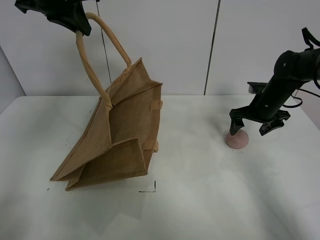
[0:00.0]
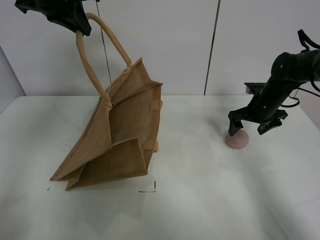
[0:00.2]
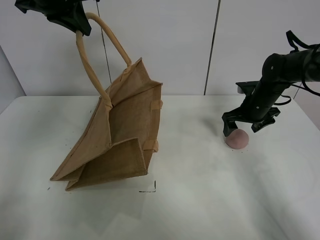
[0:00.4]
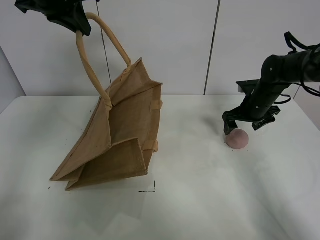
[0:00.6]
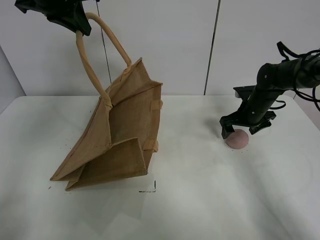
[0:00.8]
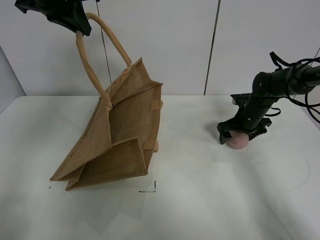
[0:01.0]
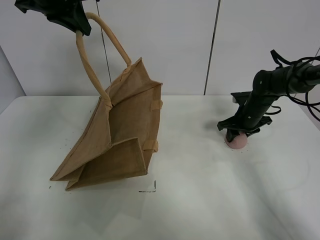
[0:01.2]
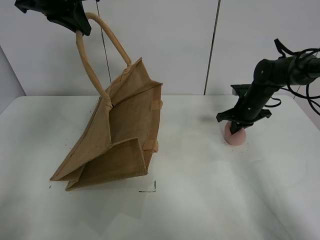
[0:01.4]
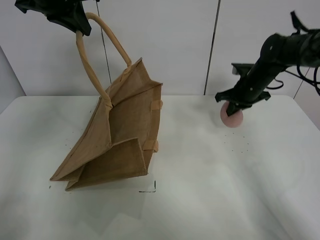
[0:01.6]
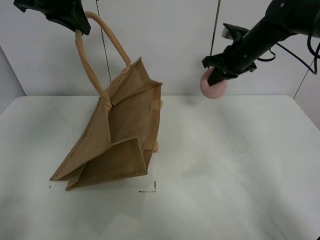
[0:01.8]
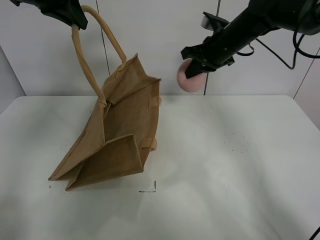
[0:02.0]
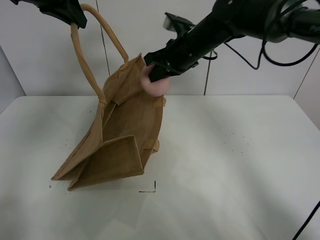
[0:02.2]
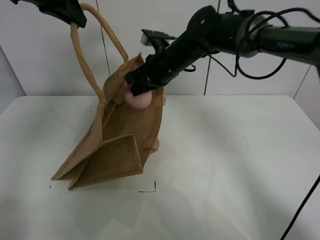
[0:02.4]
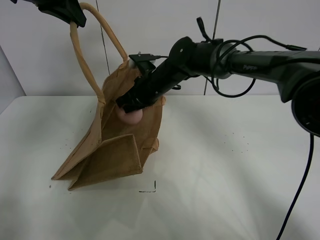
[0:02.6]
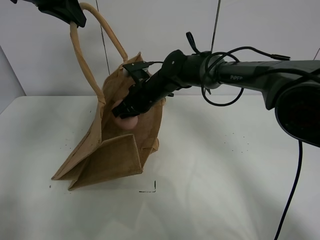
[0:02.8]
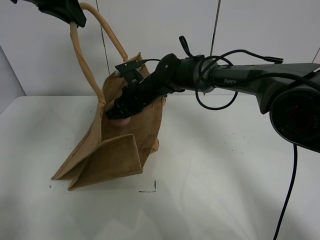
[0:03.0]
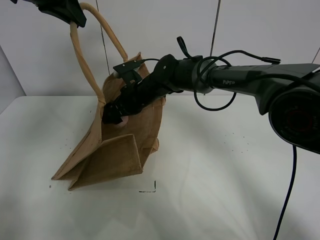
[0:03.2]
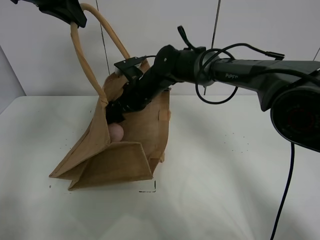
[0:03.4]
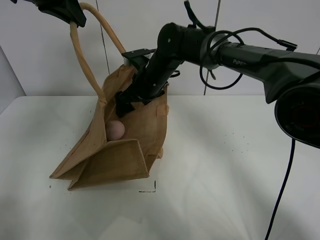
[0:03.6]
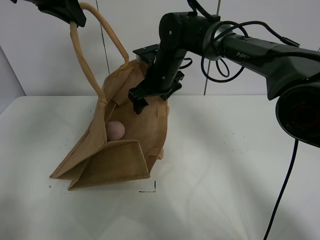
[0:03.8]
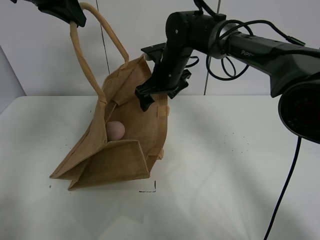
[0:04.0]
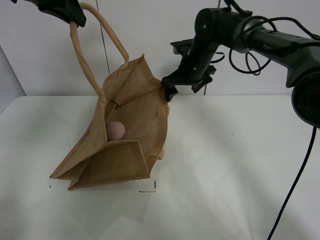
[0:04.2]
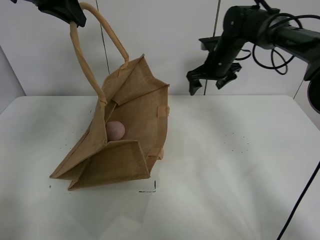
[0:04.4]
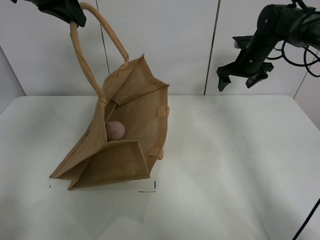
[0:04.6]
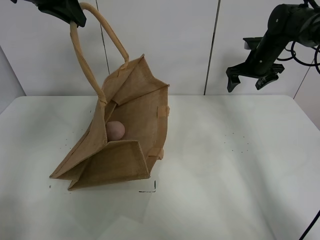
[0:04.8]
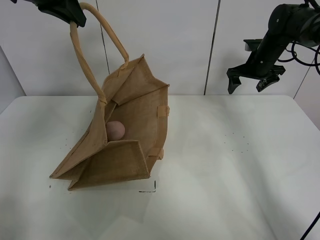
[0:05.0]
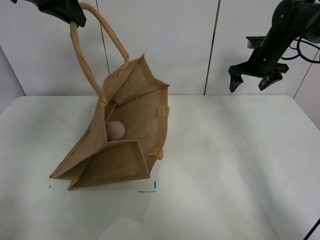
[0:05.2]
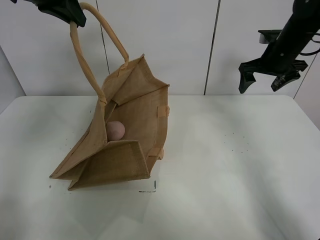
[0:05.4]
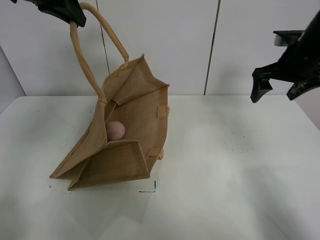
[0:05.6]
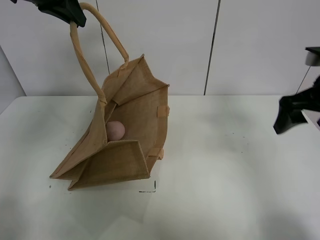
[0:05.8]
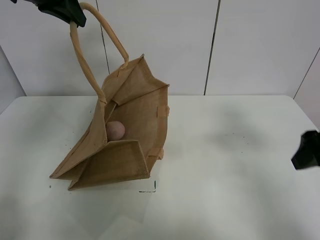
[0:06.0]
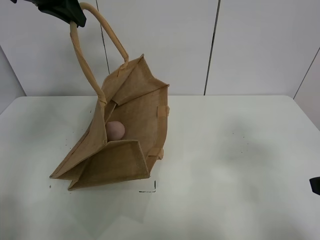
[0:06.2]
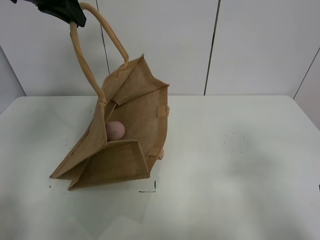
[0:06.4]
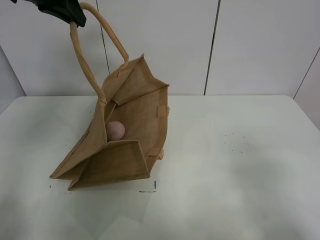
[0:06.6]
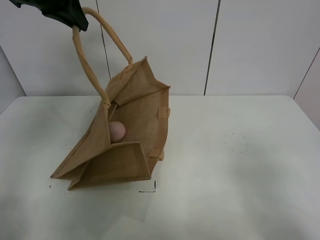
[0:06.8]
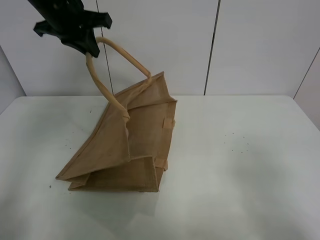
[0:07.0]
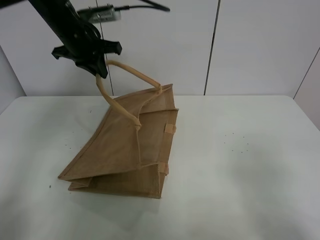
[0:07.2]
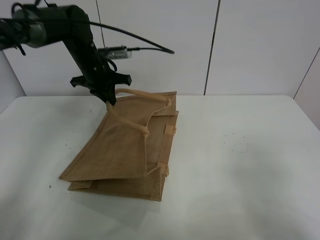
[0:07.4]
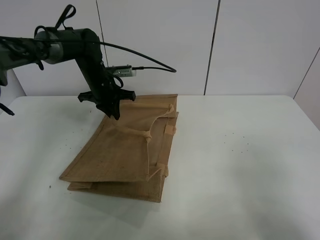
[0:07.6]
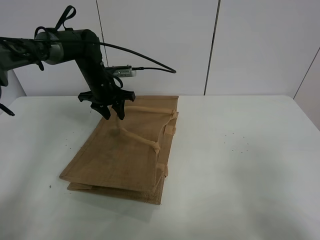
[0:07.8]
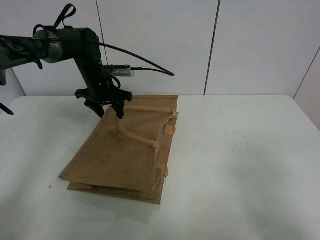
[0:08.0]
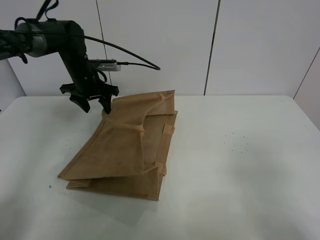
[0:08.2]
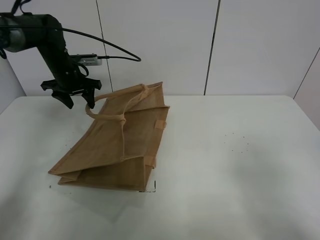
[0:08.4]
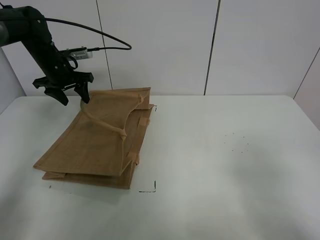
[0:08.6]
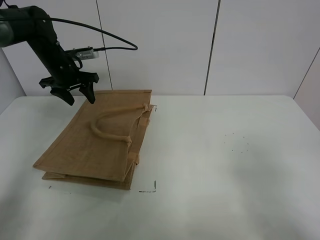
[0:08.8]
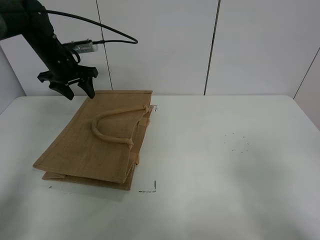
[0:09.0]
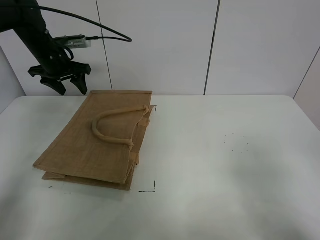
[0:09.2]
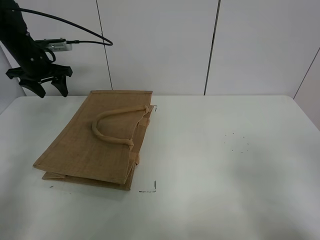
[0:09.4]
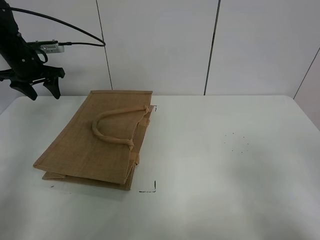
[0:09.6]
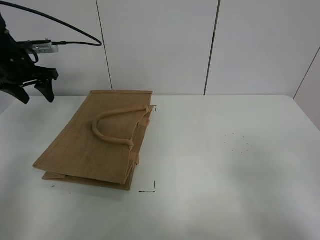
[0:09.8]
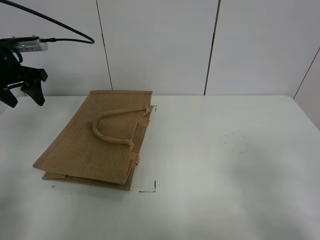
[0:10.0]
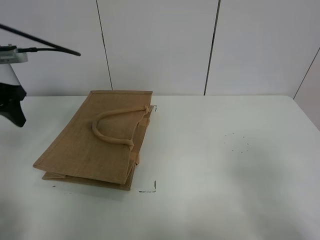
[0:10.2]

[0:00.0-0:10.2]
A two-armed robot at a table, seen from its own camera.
Task of the whole recording: open the brown linen bag and put the peach in the bag.
Step, 0:00.0 to 0:01.2: Grasp the peach with right gripper.
Step, 0:01.4 to 0:04.2: Place the peach in the handbag with right gripper.
Step, 0:04.4 to 0:09.2: Put down the handbag with left grippe.
0:00.0 to 0:01.4: The right gripper closes its fingers.
0:01.4 to 0:03.0: The right gripper goes roughly 30 cm to the left, and opens its fingers.
0:03.0 to 0:04.4: The right gripper moves to the right and forward, about 25 cm, and opens up.
0:04.4 to 0:05.8: The right gripper is displaced backward and to the right by roughly 30 cm.
0:05.8 to 0:07.2: The left gripper travels downward and forward by approximately 15 cm. The right gripper is displaced backward by roughly 25 cm.
0:07.2 to 0:08.8: The left gripper moves to the left and downward, roughly 10 cm, and opens up.
0:08.8 to 0:10.2: The left gripper is displaced backward by roughly 20 cm.

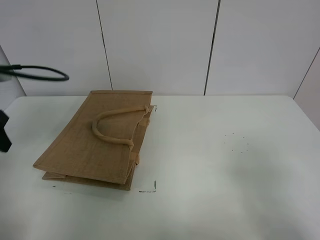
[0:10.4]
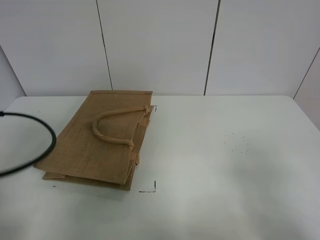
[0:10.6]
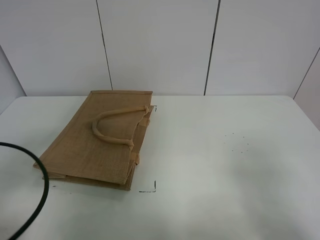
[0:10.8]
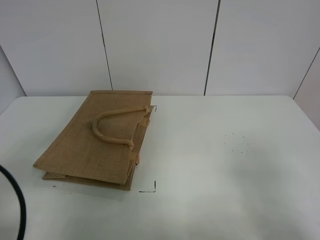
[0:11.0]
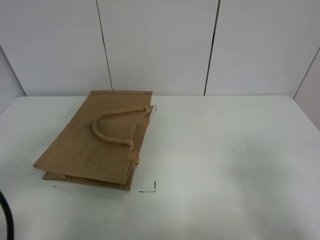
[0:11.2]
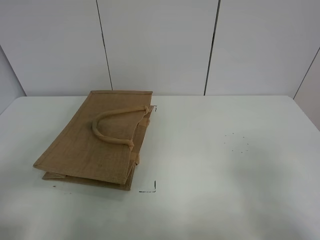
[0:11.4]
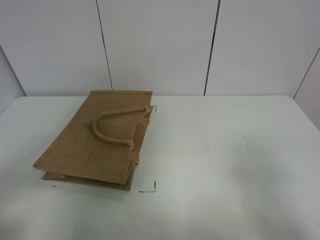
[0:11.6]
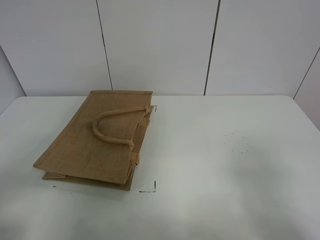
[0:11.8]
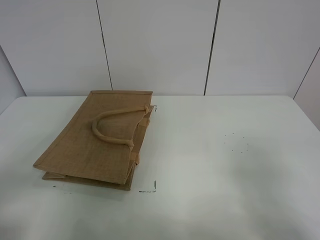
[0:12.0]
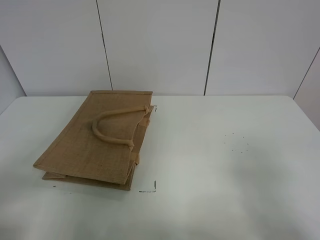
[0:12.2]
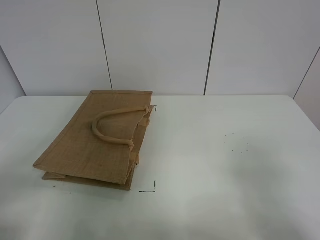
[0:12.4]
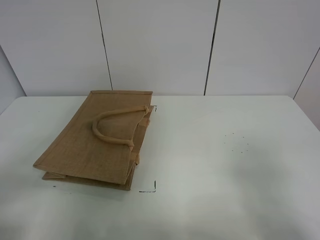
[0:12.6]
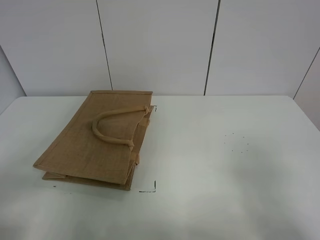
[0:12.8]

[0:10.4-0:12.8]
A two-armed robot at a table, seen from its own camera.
Task of the whole recording: open the brown linen bag and put the peach in the bag.
0:10.4 to 0:11.6: The left gripper goes roughly 20 cm backward.

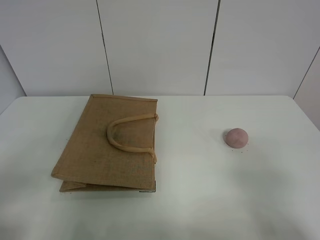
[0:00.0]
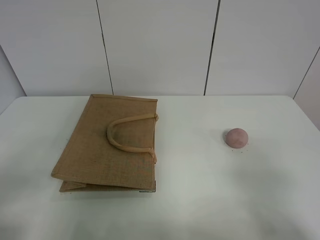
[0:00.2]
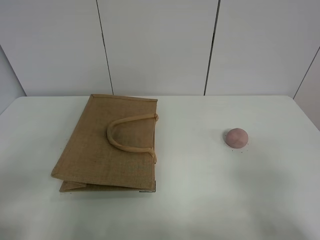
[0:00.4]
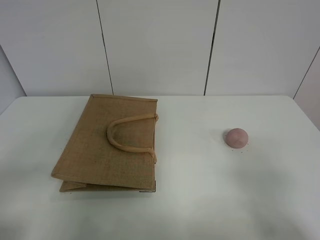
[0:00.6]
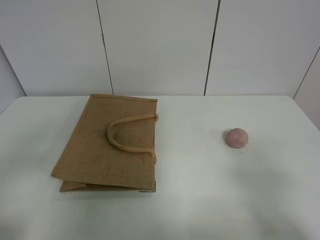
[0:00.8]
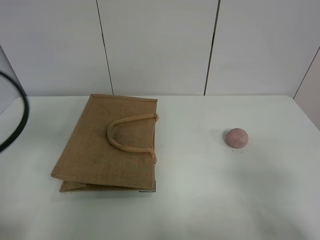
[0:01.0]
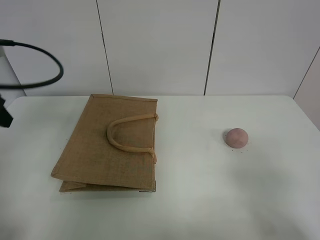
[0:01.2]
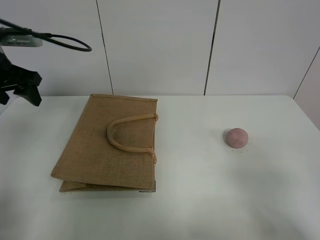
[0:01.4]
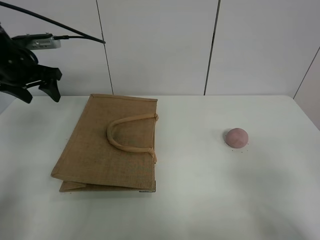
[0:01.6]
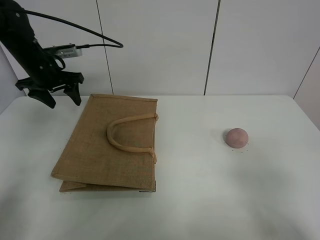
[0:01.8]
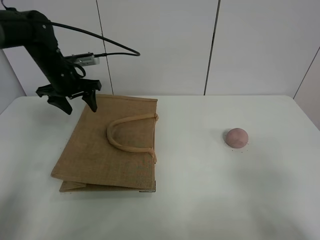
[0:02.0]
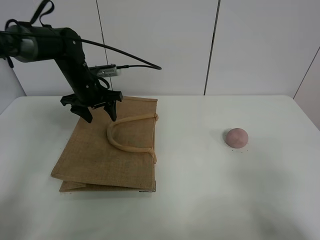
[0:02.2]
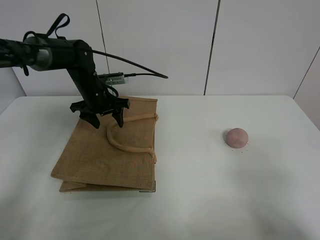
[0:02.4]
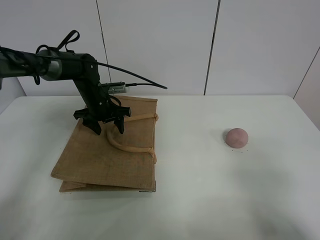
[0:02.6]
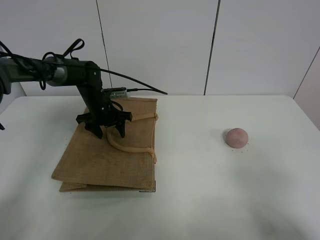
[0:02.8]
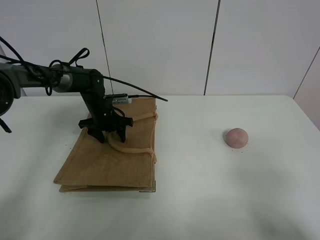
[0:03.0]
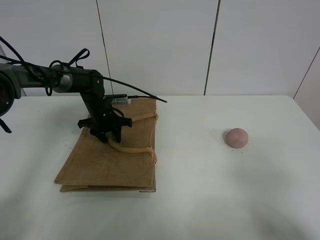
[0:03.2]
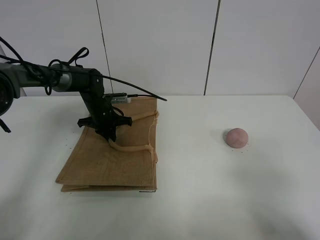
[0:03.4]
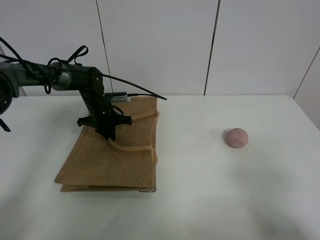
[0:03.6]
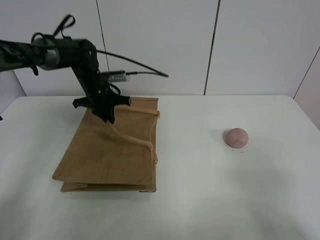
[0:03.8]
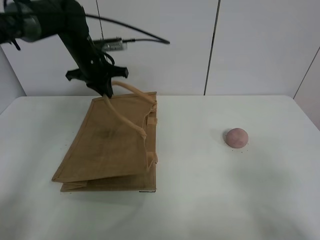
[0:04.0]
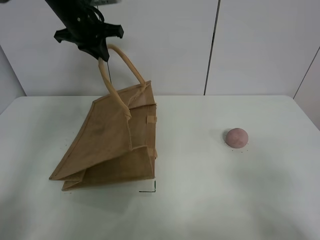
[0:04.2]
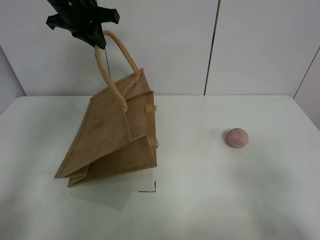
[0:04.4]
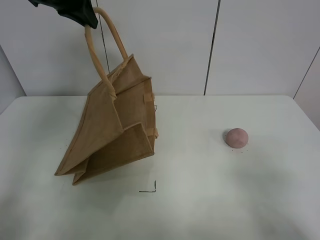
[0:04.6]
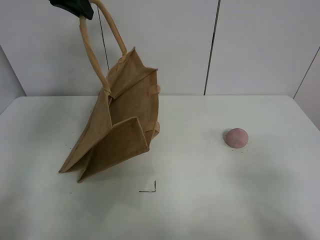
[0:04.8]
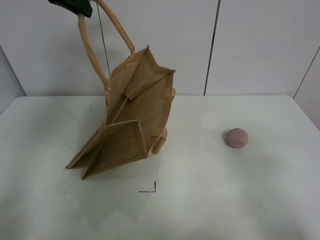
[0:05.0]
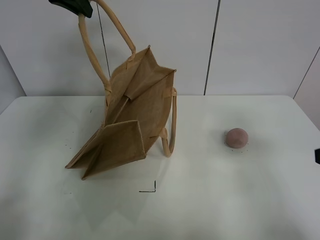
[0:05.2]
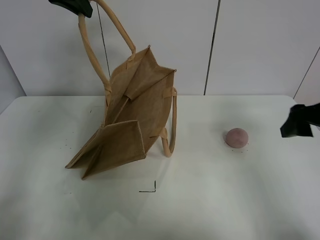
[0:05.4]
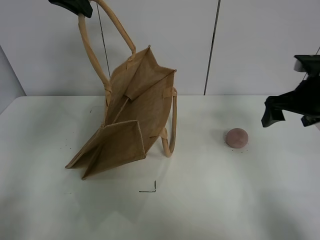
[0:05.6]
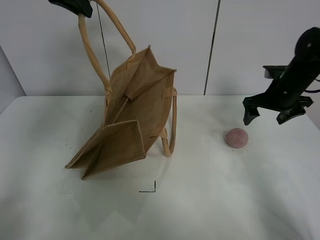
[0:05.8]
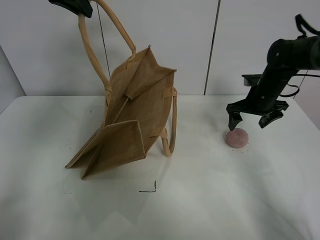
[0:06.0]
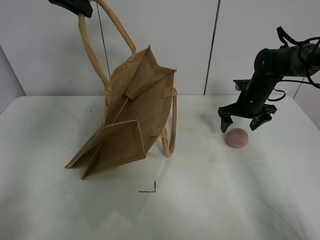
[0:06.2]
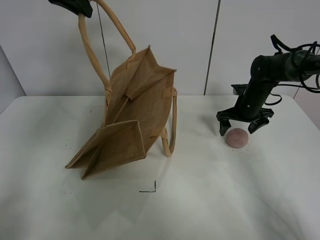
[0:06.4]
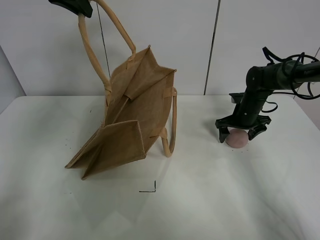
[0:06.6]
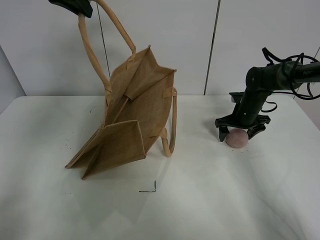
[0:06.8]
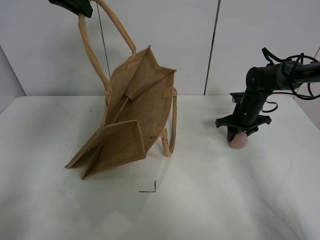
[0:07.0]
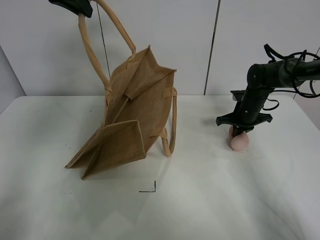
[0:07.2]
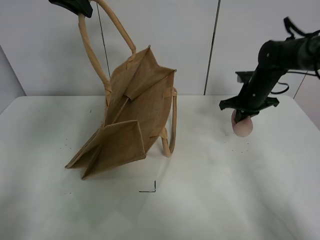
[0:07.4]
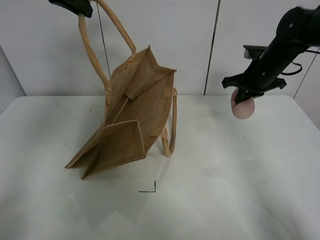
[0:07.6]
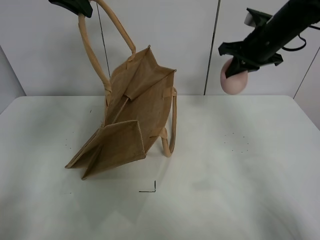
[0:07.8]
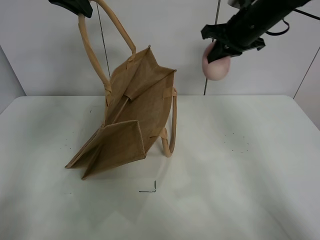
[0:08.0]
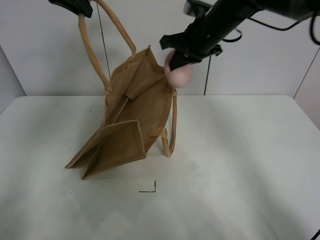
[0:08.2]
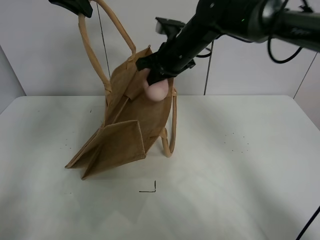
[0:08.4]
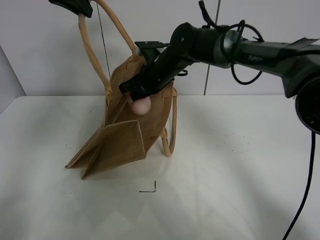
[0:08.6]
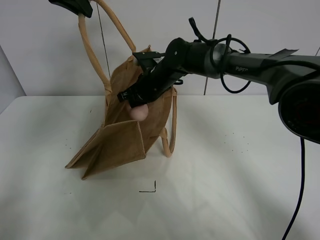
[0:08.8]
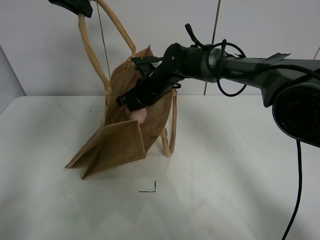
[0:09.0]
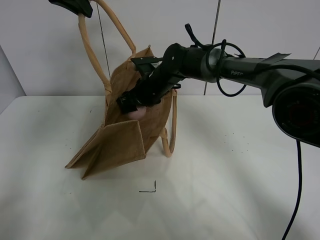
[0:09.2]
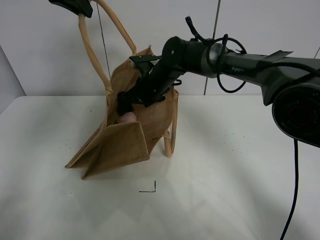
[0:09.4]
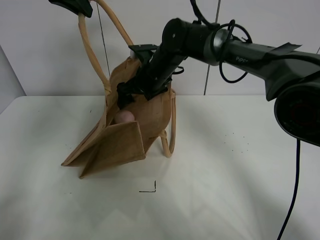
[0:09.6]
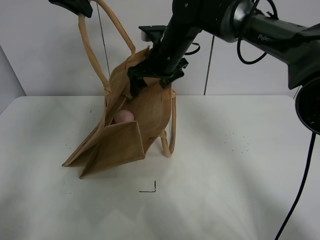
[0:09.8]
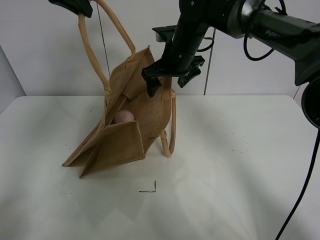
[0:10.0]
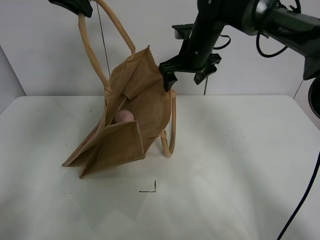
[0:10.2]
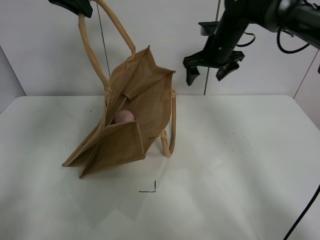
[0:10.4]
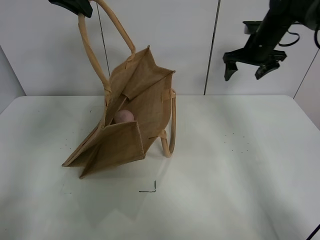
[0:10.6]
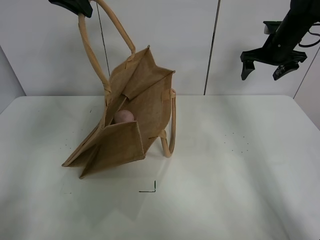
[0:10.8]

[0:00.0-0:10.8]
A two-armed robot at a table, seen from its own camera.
Task of the whole recording: open the brown linen bag and put the peach in the bag.
Step, 0:00.0 to 0:04.6: Lift the handbag with left gripper.
Step, 0:04.8 to 0:07.0: Grasp the peach with right gripper.
Step, 0:07.2 to 0:10.2: Place the peach in the handbag with right gripper.
0:00.0 to 0:01.6: The left gripper goes about 40 cm forward.
0:01.6 to 0:03.0: The left gripper heads downward and to the right, covering about 25 cm.
0:03.0 to 0:04.6: The left gripper moves upward, approximately 35 cm, and closes up.
0:04.6 to 0:06.2: The right gripper travels forward by approximately 40 cm.
0:06.2 to 0:07.8: The right gripper goes some 15 cm upward, and closes.
0:07.8 to 0:09.2: The right gripper is displaced to the left and downward by roughly 25 cm, and opens up.
0:09.2 to 0:10.8: The right gripper is displaced to the right by roughly 30 cm.
